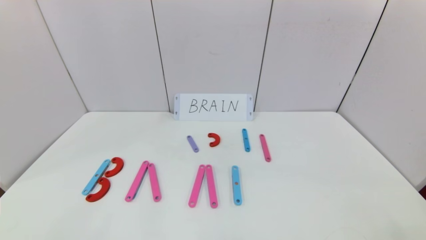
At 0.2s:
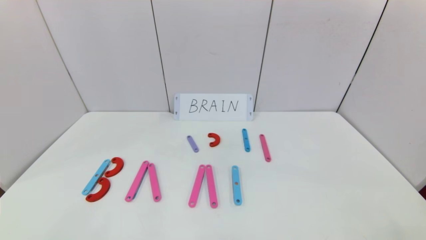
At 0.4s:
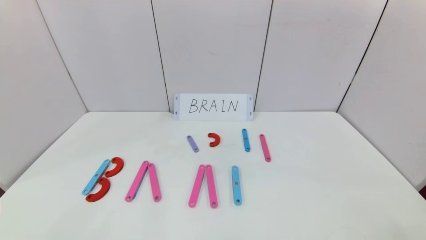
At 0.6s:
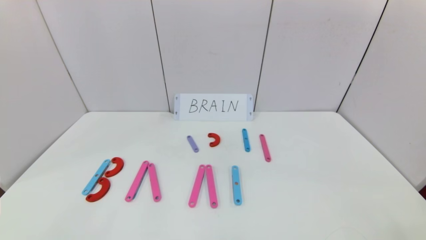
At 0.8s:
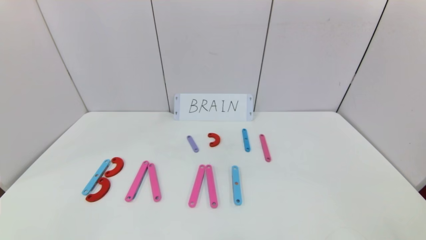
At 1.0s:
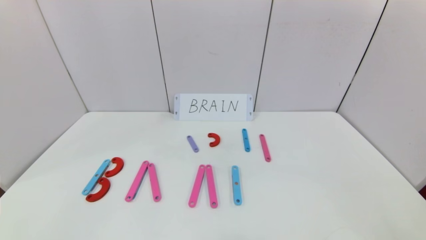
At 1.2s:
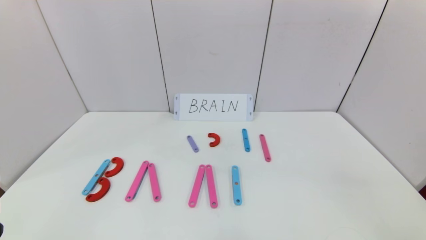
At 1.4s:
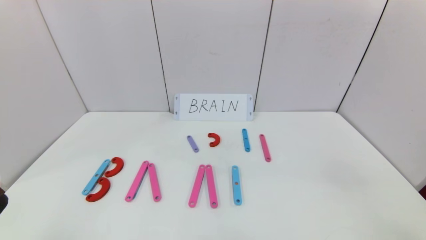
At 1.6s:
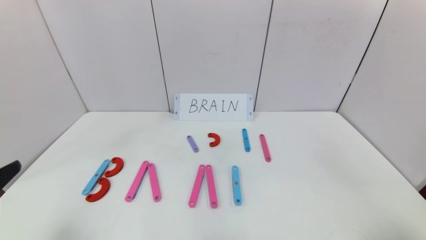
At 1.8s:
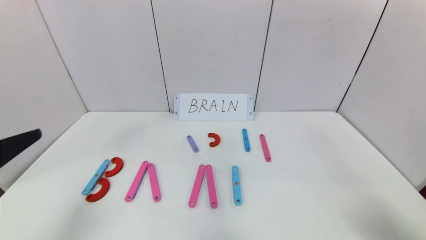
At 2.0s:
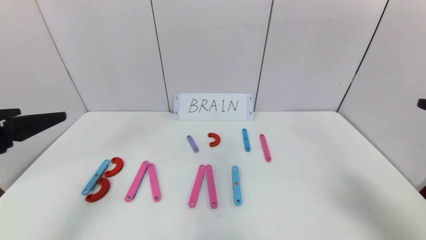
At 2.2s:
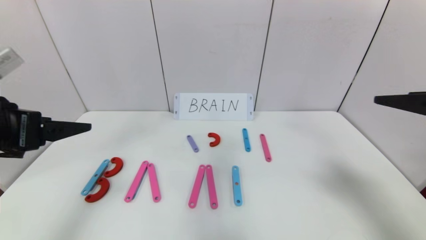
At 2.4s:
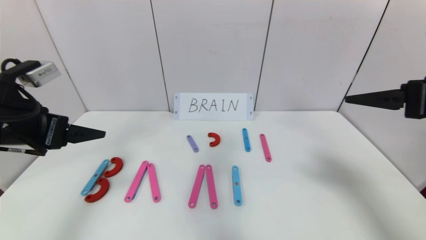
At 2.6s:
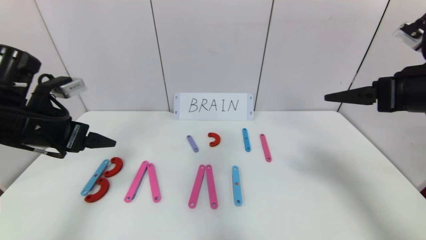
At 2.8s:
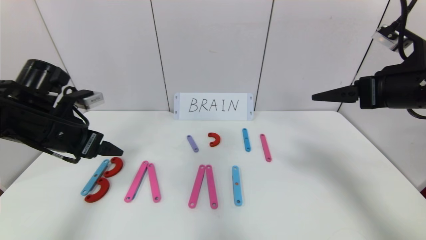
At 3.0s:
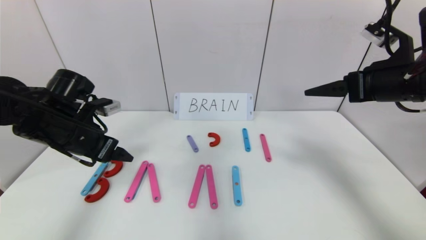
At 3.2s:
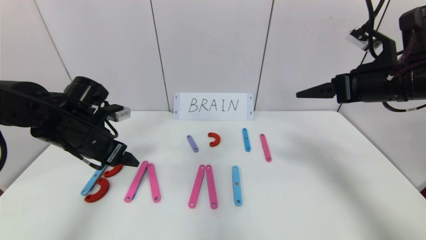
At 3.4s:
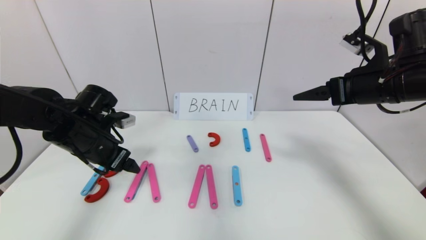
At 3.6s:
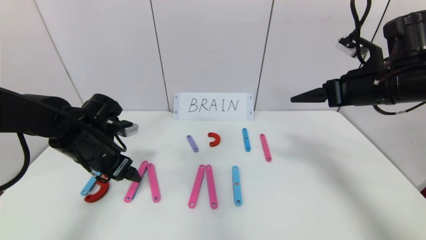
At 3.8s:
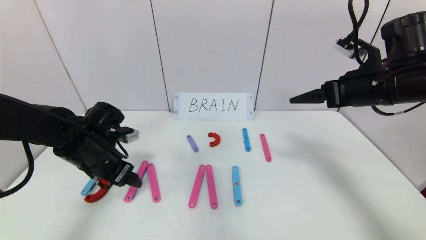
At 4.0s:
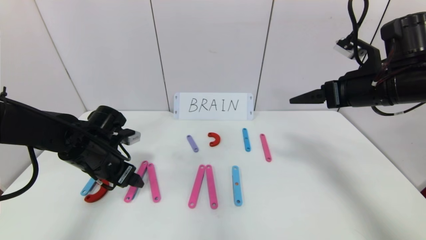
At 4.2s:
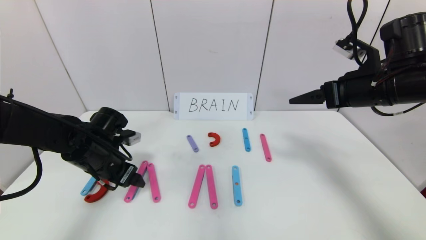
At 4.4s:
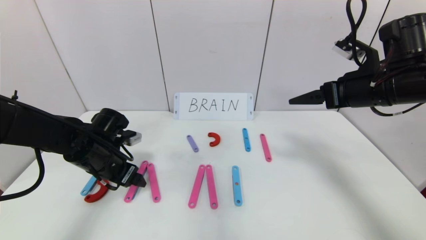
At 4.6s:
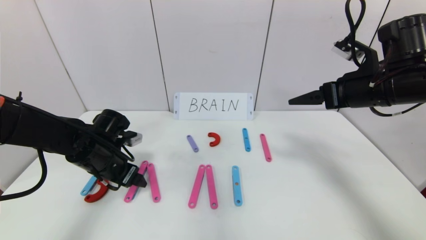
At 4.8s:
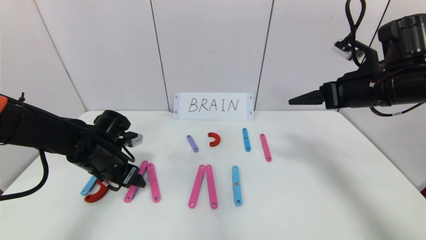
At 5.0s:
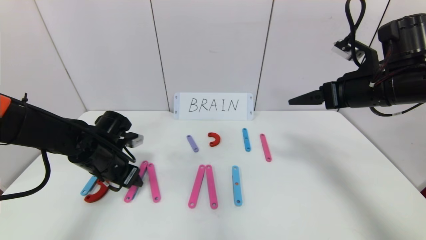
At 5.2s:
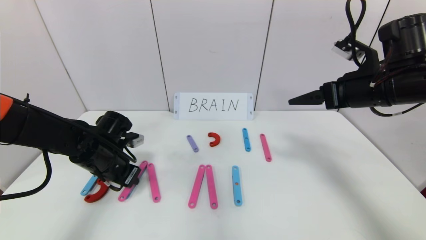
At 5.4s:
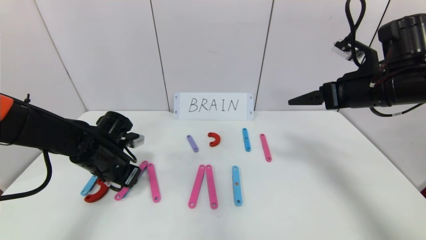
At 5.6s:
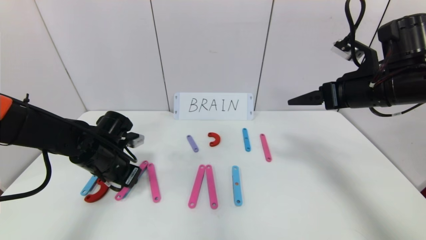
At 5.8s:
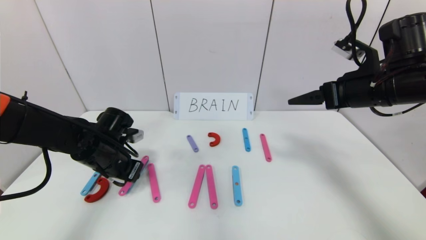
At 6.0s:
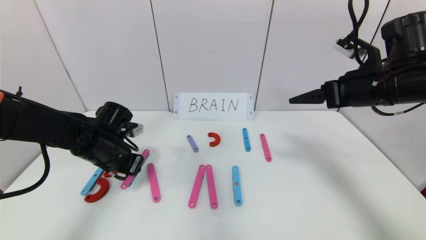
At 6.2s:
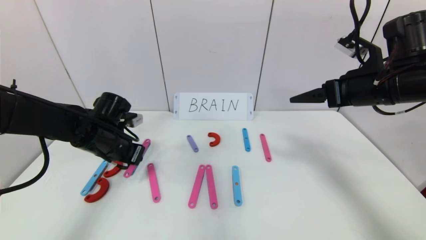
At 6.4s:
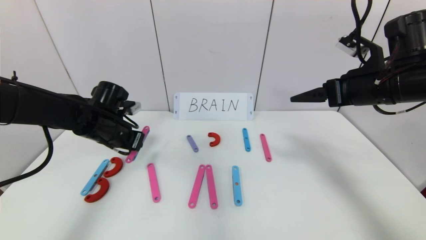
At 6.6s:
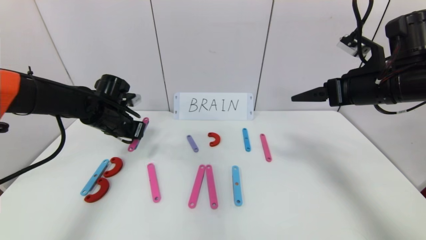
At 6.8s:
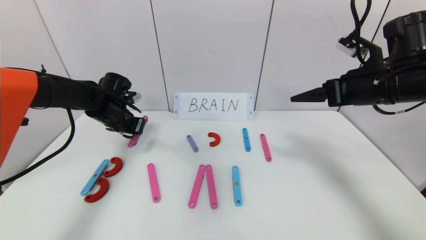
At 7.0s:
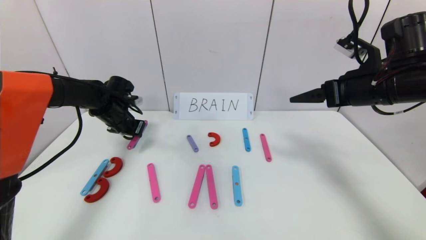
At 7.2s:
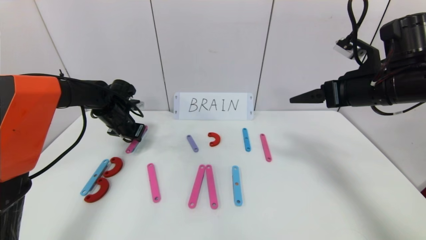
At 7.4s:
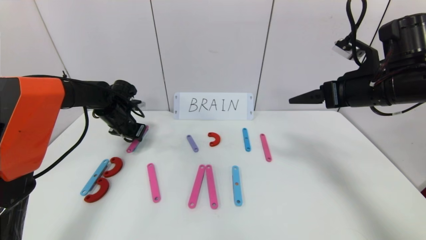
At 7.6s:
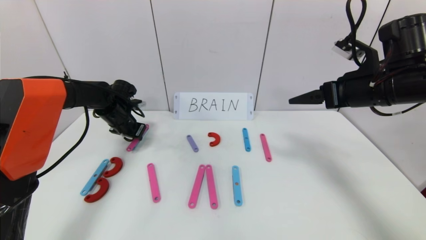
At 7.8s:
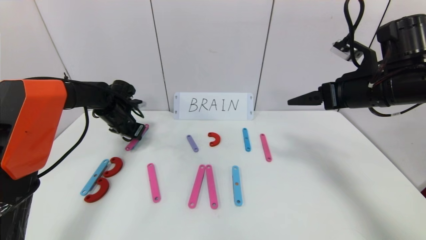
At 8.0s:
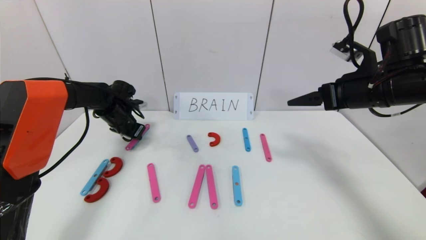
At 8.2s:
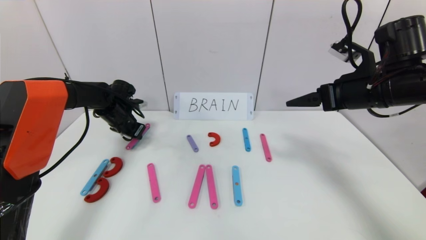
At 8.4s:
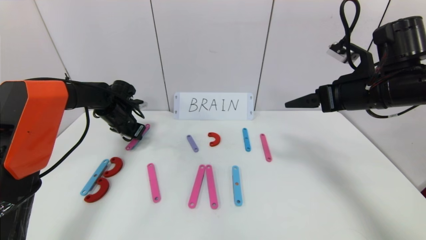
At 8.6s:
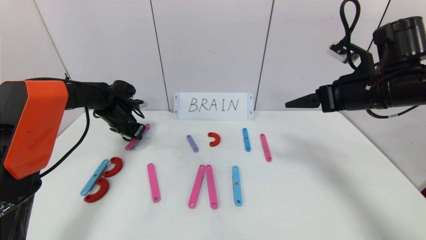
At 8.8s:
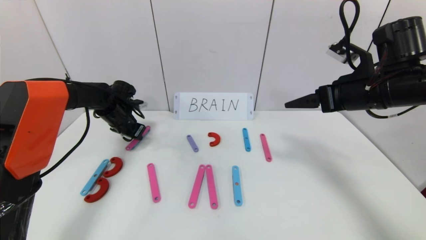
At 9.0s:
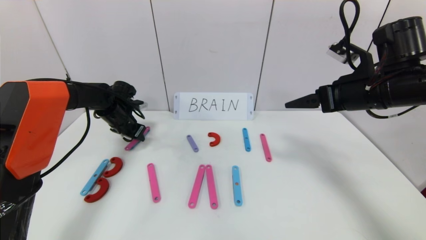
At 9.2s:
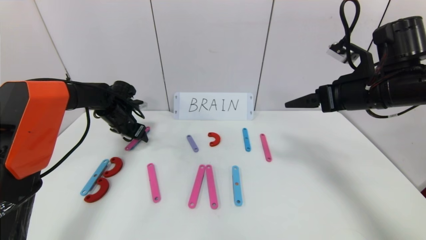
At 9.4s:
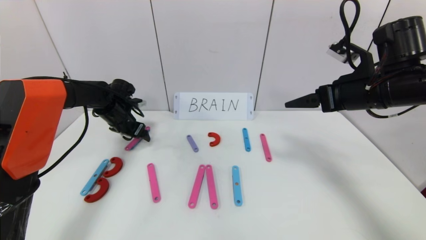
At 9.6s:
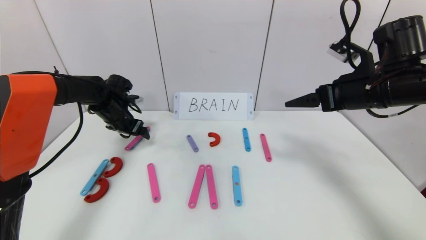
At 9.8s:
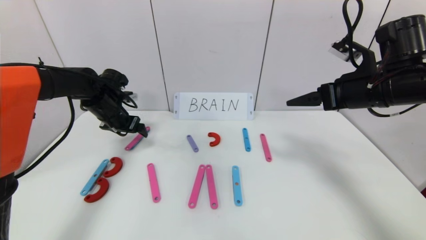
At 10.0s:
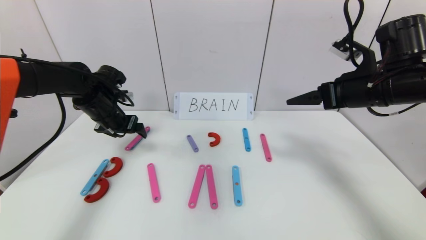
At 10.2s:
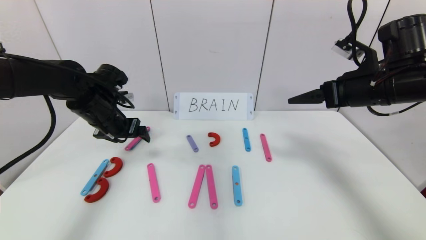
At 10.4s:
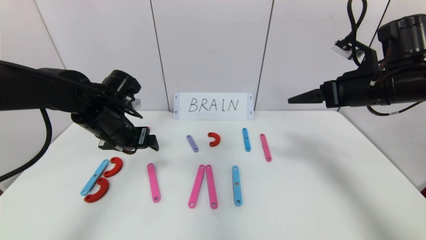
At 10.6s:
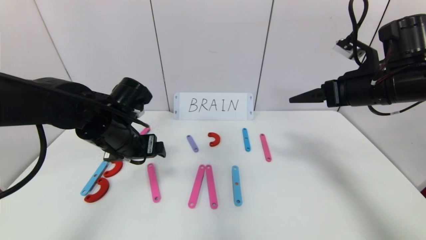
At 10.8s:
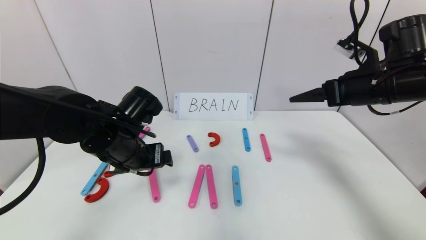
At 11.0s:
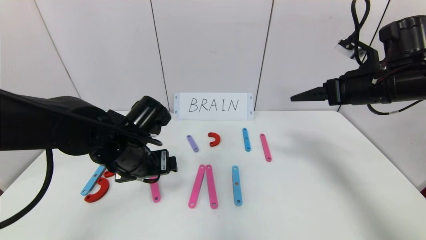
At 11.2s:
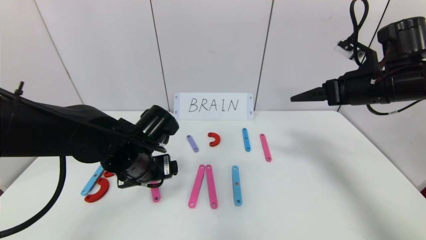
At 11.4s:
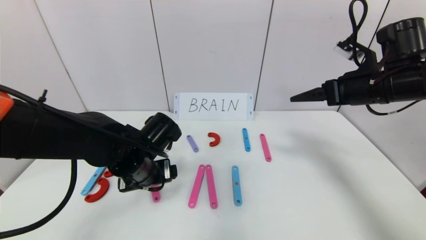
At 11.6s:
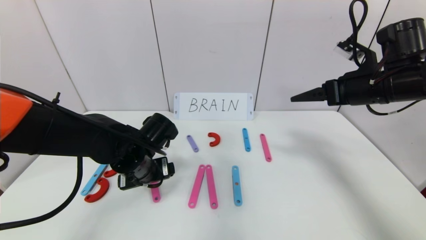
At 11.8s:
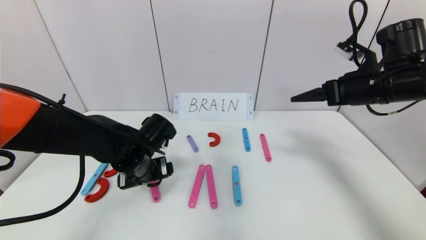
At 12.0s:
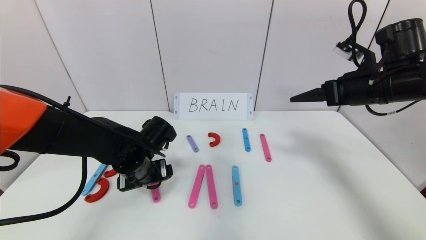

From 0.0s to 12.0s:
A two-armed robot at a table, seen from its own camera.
Task of the whole recording: rearrange the word baai as brain.
From 1.6s to 3.0s: Both grippers move forward, some 25 cm.
From 3.0s to 4.4s: The left gripper is displaced downward by about 10 cm.
From 4.4s to 6.0s: The left gripper closes its fingers.
From 6.0s to 7.6s: The left gripper shifts approximately 15 cm forward.
From 7.6s to 9.0s: The left gripper opens.
From 9.0s to 10.4s: The left gripper travels backward, to the right and upward by roughly 20 cm, and opens up.
From 10.4s to 12.0s: The left gripper goes approximately 10 cm downward.

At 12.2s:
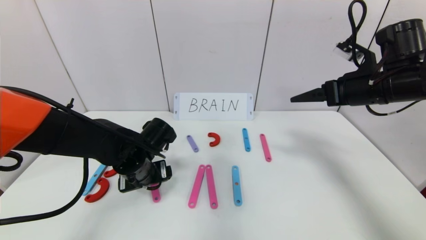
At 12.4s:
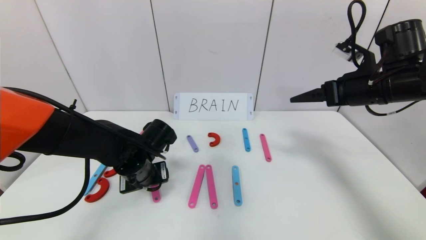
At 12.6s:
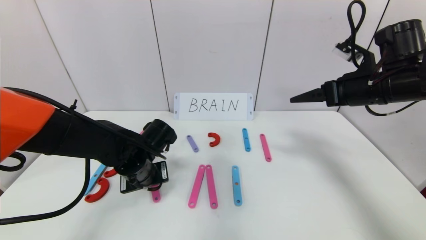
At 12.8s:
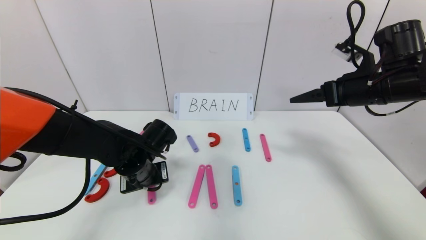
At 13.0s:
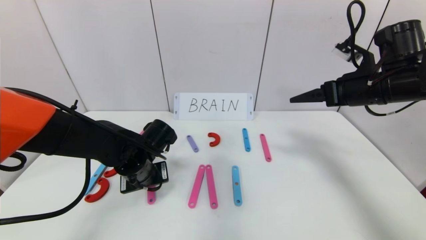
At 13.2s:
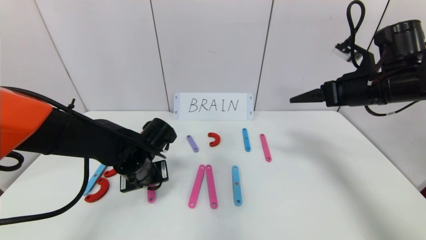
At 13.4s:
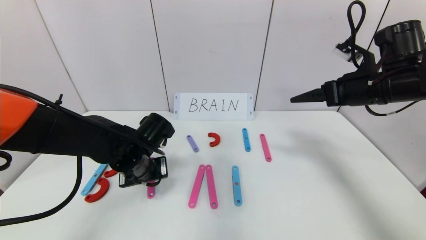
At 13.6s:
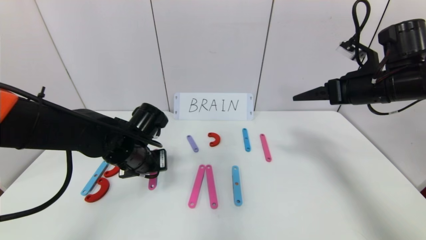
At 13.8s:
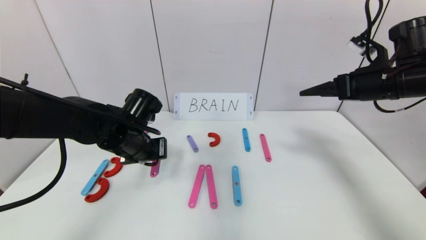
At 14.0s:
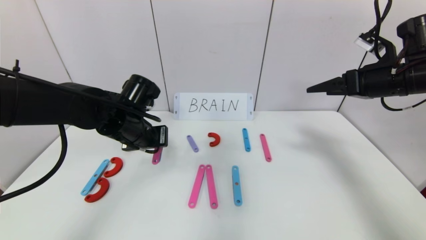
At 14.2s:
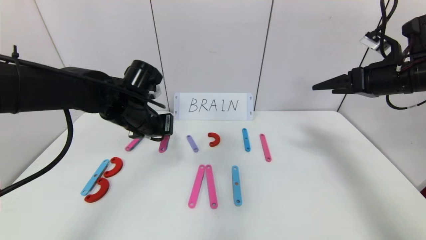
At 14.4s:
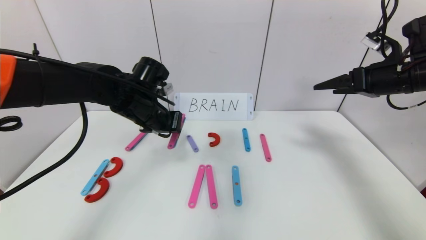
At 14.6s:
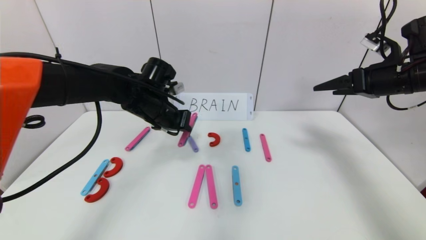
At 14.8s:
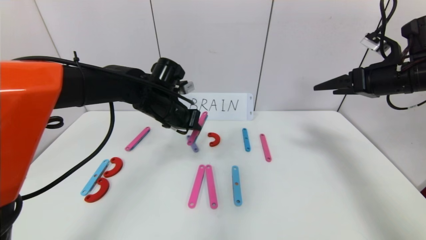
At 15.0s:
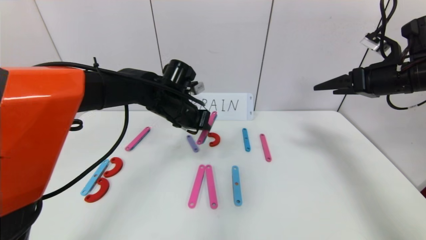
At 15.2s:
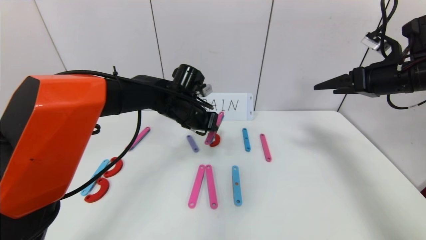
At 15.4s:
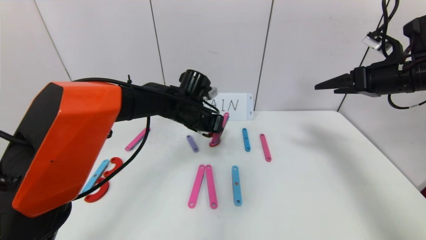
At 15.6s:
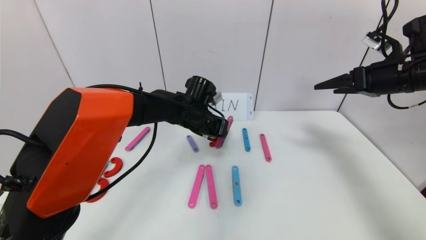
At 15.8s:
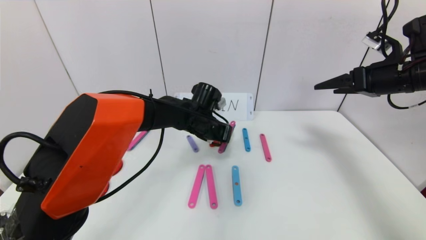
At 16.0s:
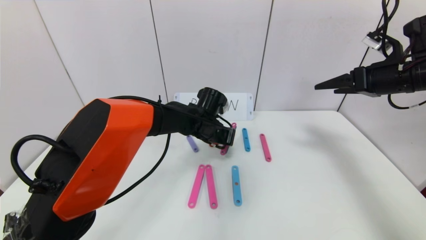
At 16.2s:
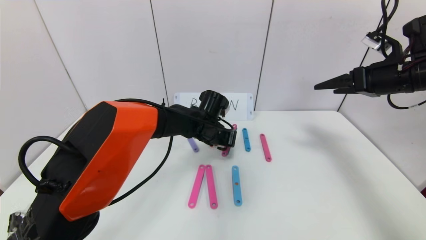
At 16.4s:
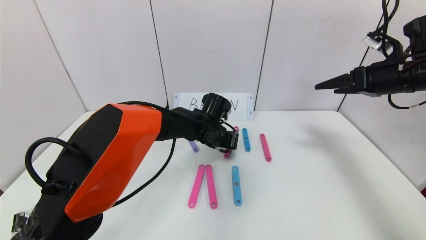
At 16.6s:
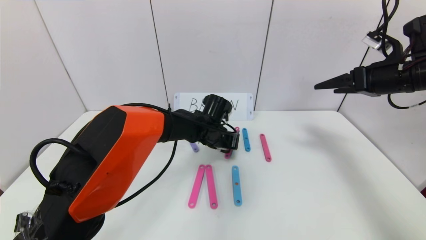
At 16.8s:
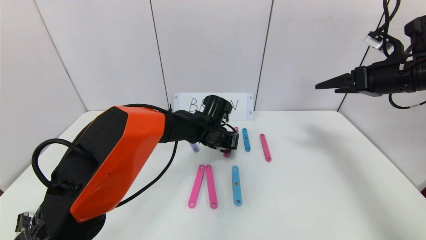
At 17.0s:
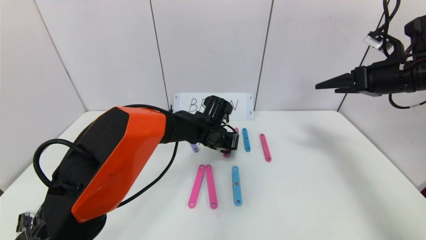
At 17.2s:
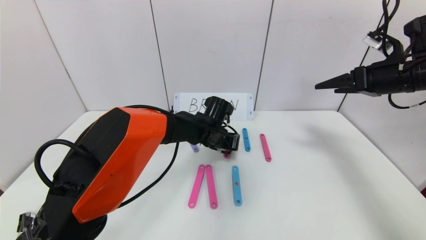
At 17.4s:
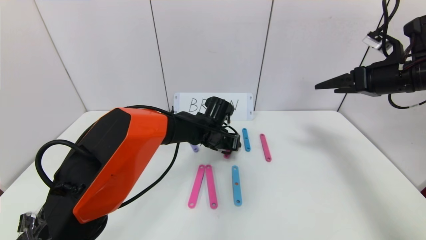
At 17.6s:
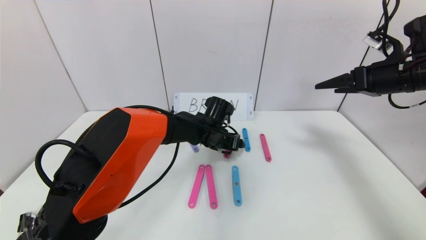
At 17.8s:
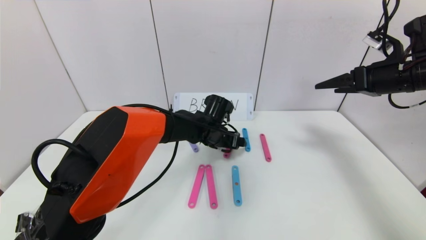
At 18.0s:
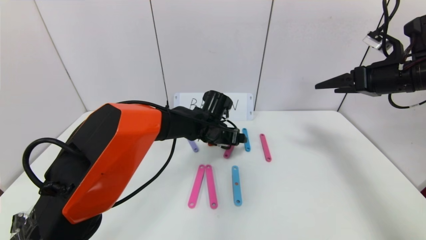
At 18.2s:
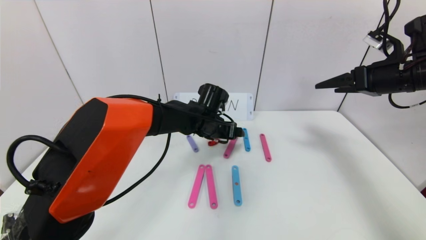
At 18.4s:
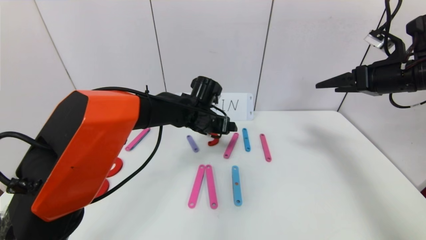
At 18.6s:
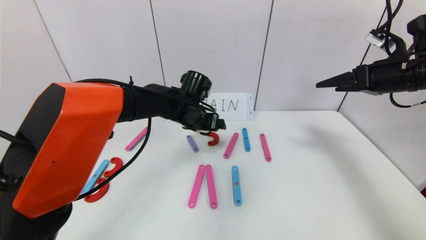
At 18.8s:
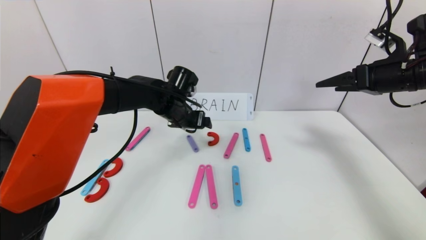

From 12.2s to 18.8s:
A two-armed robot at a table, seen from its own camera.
Task of the whole recording: rearrange the word baai as brain.
Step, from 12.2s to 17.4s: Disassemble the second character A.
From 12.2s to 13.8s: The left gripper travels upward by some 5 cm, and closes.
From 13.8s to 15.4s: The left gripper is displaced to the right and forward by roughly 15 cm.
From 15.4s to 17.2s: The left gripper travels downward and to the right by about 10 cm.
From 17.2s to 18.8s: The left gripper travels to the left and upward by some 10 cm, and opens its fingers.
